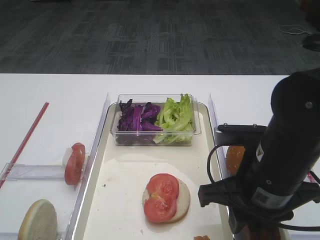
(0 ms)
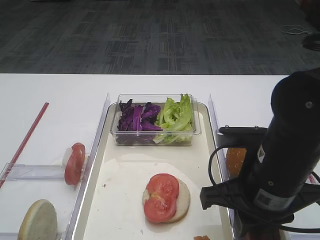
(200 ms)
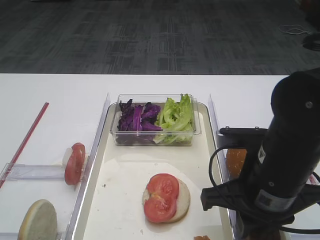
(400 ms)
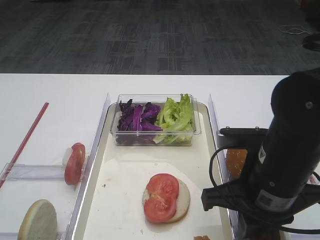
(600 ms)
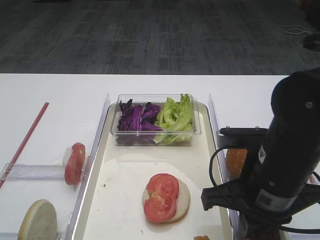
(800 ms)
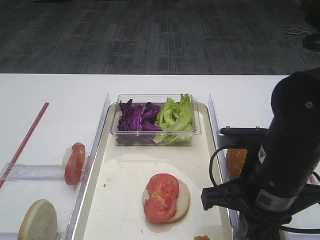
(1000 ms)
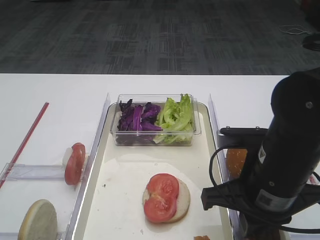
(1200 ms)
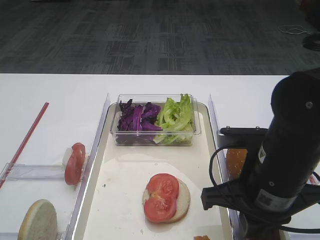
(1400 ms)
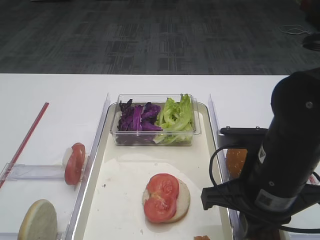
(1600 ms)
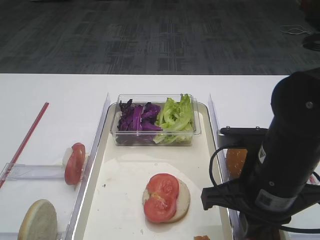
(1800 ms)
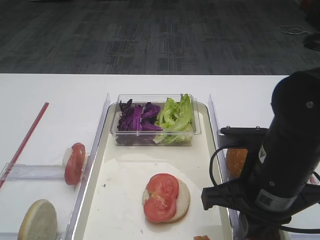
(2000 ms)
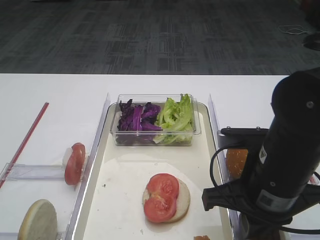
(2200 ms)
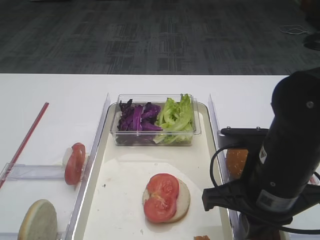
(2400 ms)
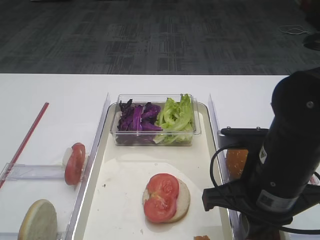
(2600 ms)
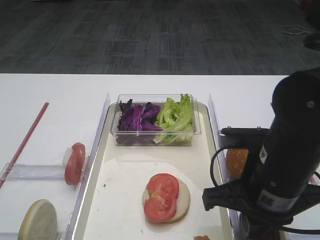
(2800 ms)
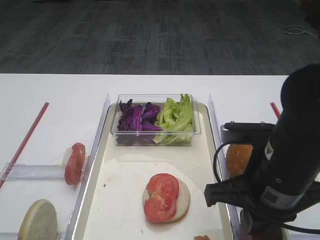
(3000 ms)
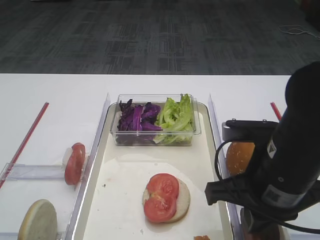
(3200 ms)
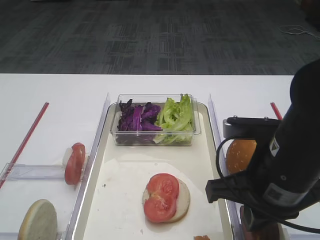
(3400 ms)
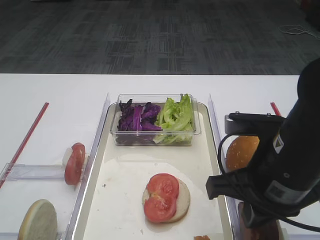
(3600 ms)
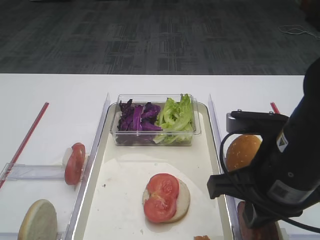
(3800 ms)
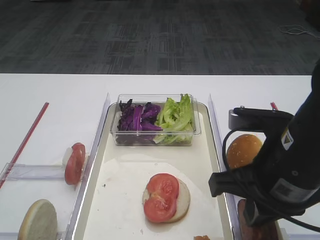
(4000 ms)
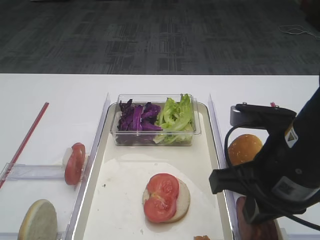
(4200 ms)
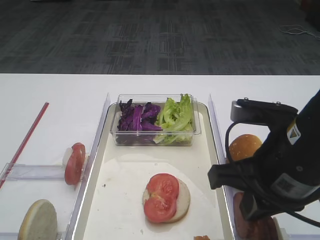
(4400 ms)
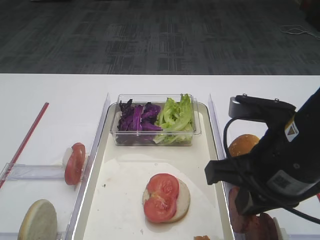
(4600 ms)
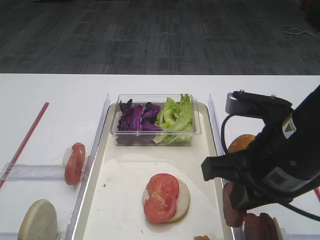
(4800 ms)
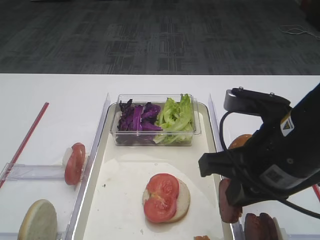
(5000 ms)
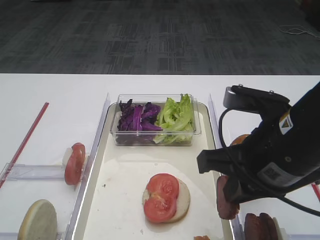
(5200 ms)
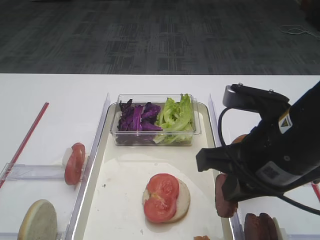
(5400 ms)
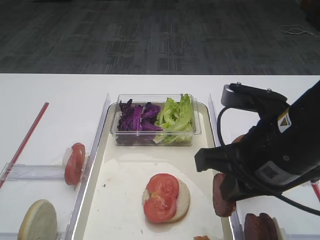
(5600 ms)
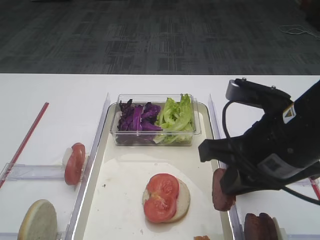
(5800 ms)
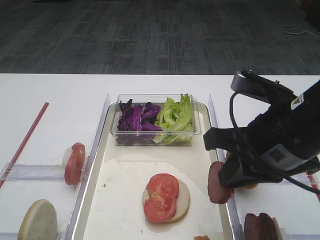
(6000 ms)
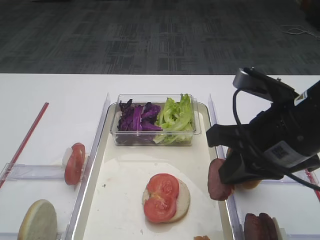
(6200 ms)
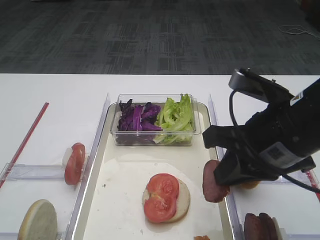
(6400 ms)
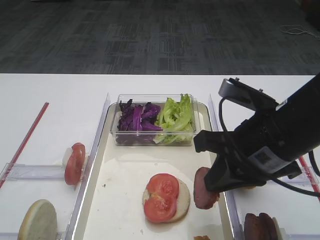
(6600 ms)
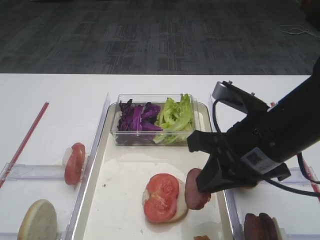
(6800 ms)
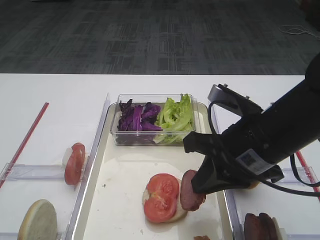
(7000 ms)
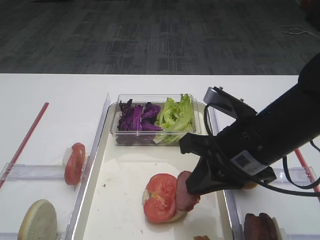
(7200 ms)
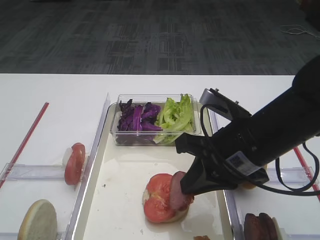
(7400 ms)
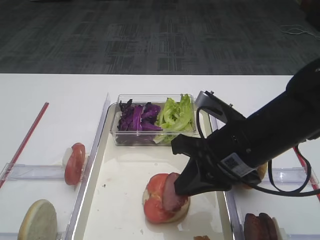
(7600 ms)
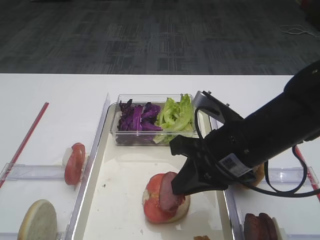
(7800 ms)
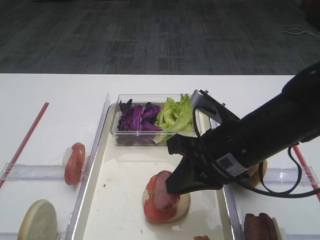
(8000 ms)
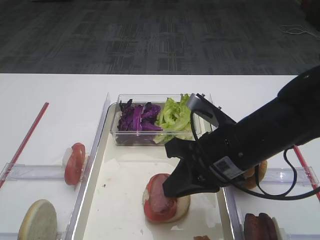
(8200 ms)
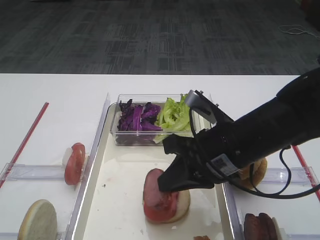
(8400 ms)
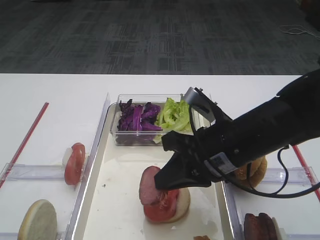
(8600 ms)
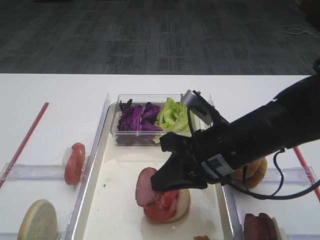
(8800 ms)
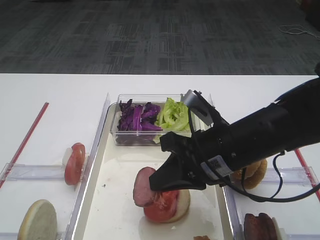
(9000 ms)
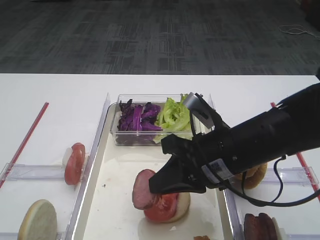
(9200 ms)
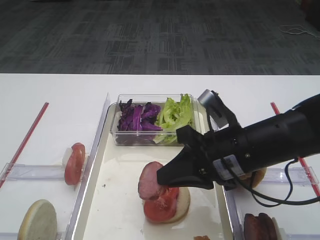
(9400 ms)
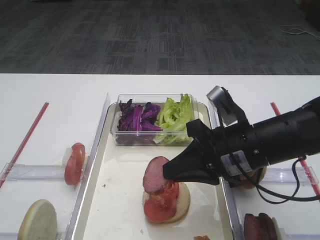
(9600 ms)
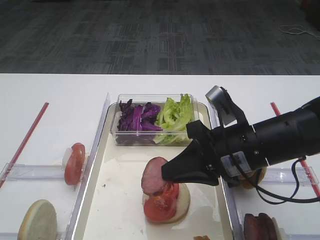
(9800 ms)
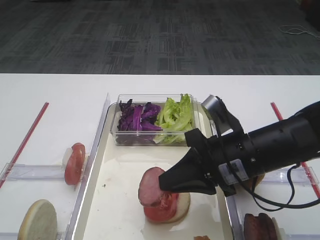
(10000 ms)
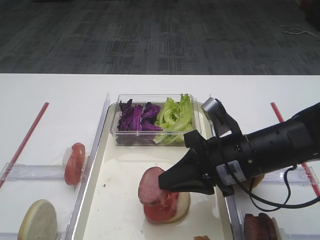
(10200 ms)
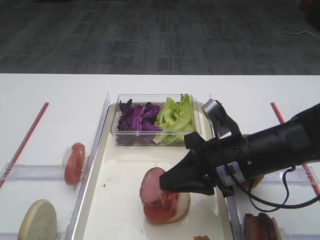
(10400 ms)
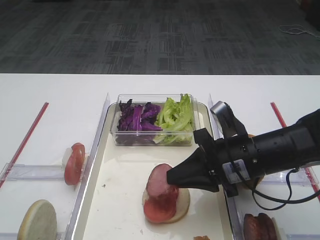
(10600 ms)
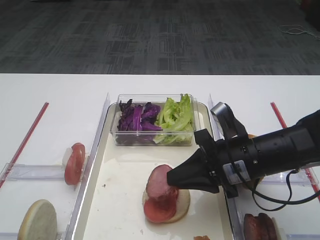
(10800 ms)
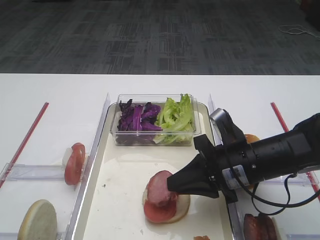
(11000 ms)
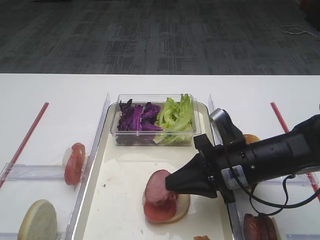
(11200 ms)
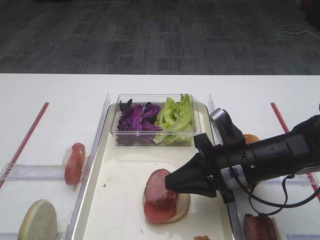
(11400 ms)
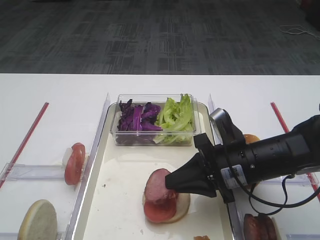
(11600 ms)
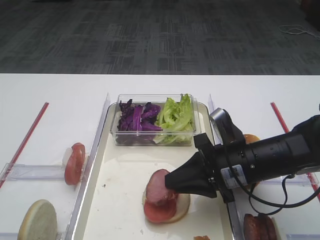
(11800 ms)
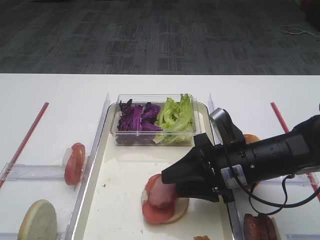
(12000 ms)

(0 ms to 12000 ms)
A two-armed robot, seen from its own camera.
Step, 0 ms - 5000 ms: Pick up the cutlet with the right gripper.
0 ms - 1600 ms: The right gripper closes up.
1600 ms - 3000 ms: Neither gripper changes place.
3000 ms - 4400 ms: The grippers move only a little.
4400 ms - 6000 ms: There are only small adjustments of the grippers.
6000 ms - 7600 ms: The right gripper changes place by approximately 5 cm.
7600 ms - 9000 ms: The grippers make only small movements.
9000 ms - 10400 ms: The grippers move only a little.
10400 ms - 12000 ms: The right gripper opens its fingers.

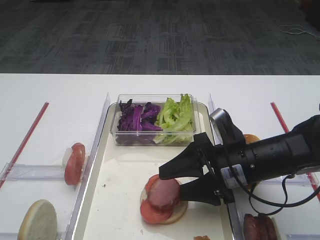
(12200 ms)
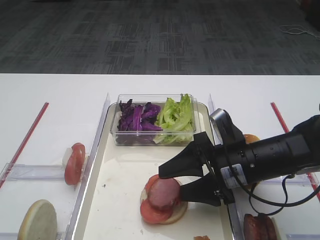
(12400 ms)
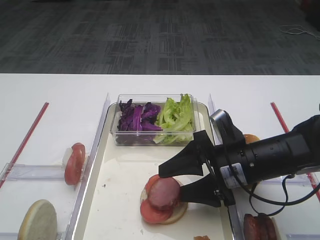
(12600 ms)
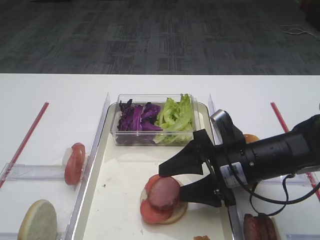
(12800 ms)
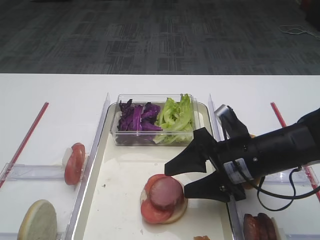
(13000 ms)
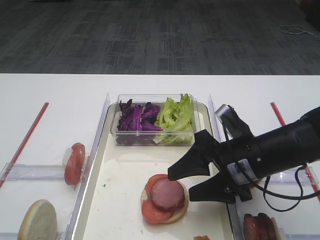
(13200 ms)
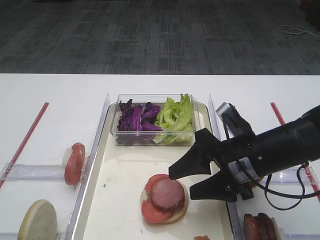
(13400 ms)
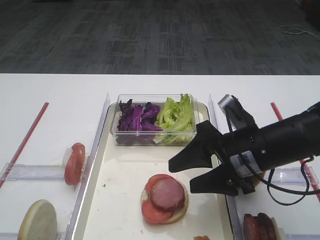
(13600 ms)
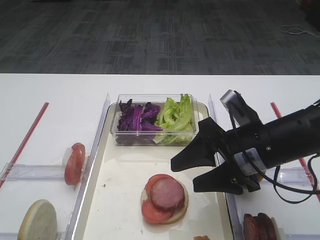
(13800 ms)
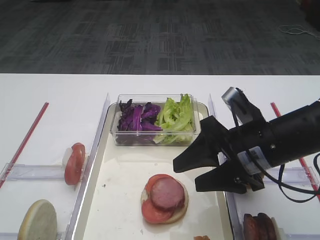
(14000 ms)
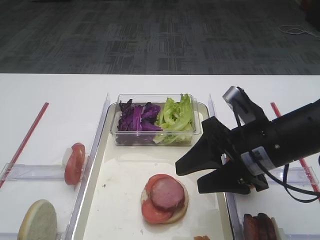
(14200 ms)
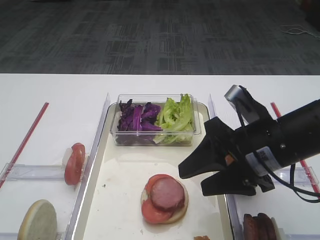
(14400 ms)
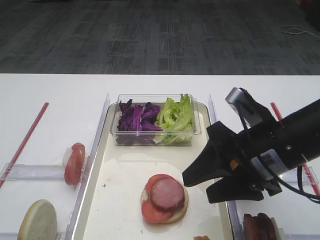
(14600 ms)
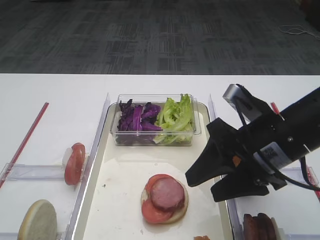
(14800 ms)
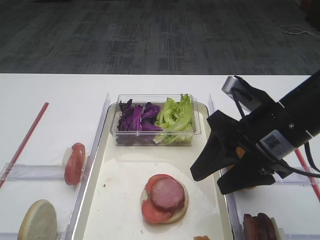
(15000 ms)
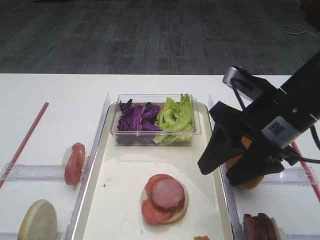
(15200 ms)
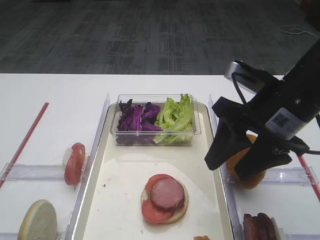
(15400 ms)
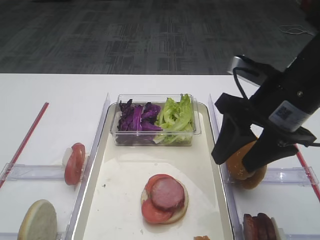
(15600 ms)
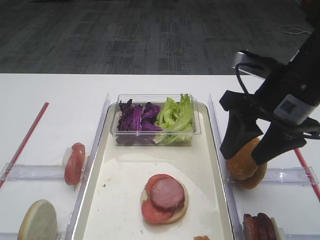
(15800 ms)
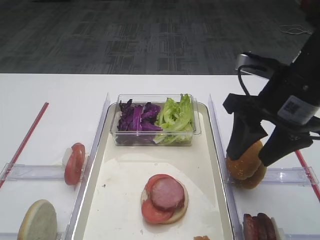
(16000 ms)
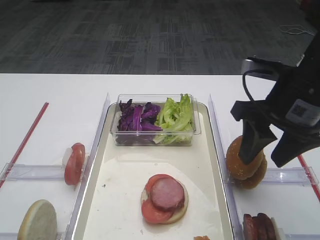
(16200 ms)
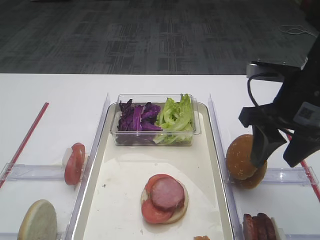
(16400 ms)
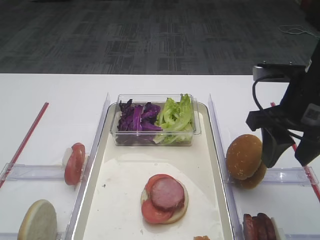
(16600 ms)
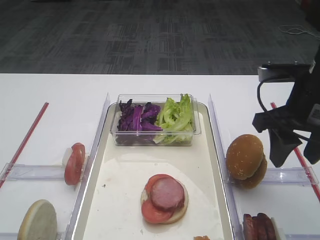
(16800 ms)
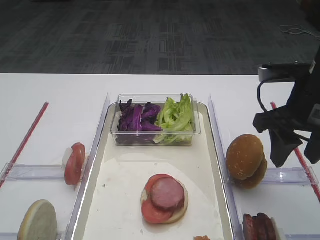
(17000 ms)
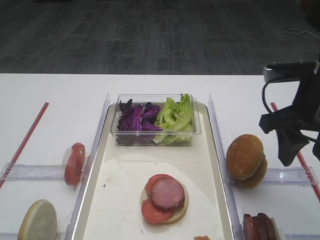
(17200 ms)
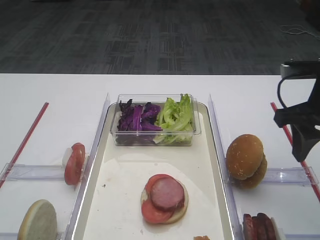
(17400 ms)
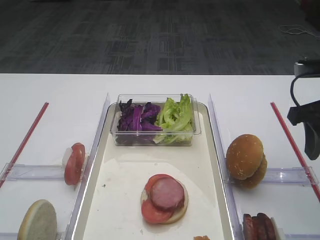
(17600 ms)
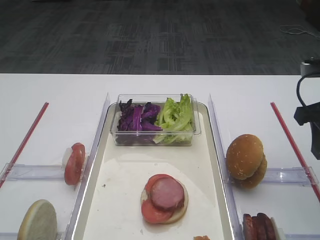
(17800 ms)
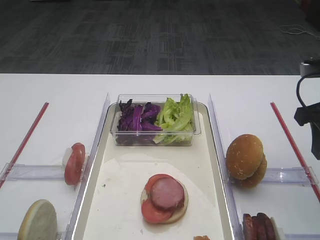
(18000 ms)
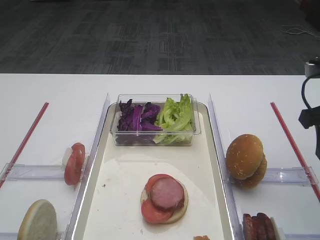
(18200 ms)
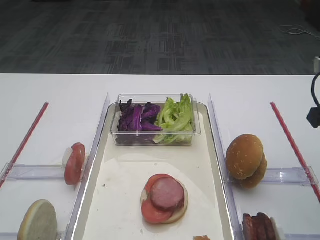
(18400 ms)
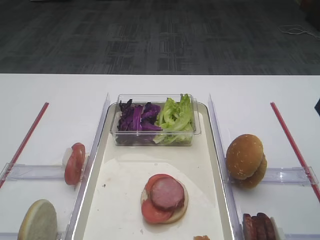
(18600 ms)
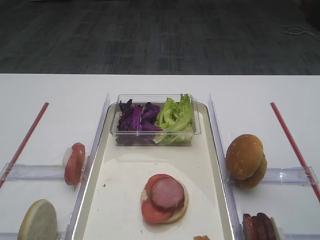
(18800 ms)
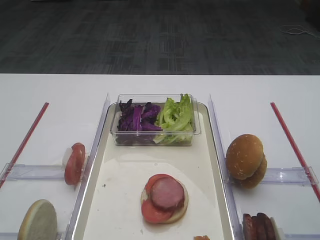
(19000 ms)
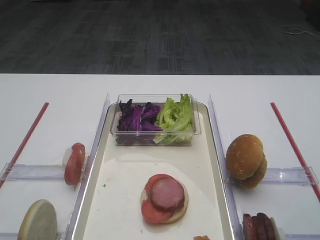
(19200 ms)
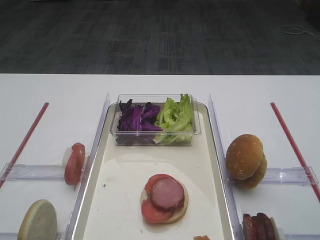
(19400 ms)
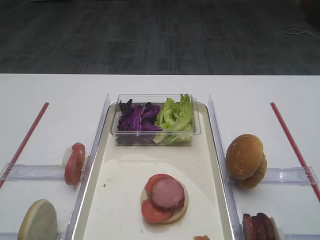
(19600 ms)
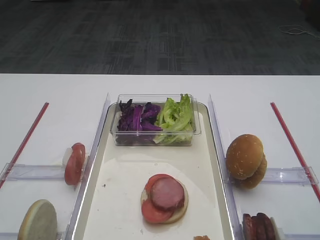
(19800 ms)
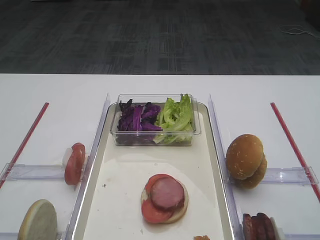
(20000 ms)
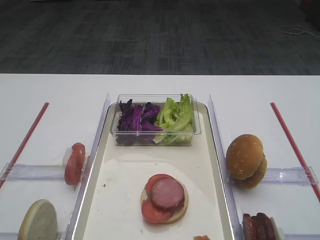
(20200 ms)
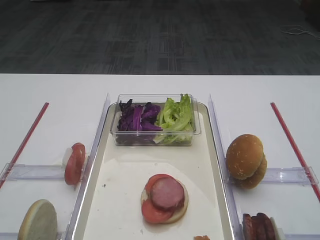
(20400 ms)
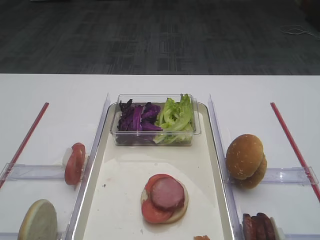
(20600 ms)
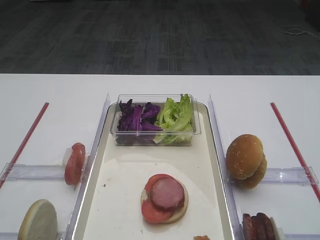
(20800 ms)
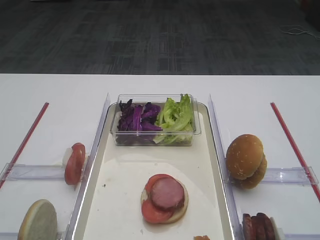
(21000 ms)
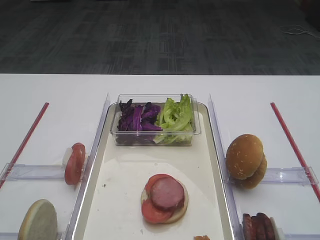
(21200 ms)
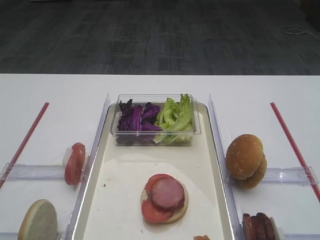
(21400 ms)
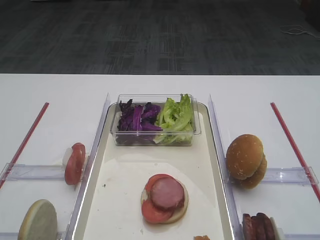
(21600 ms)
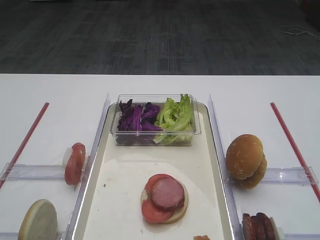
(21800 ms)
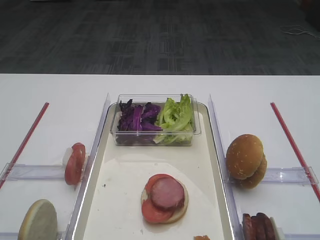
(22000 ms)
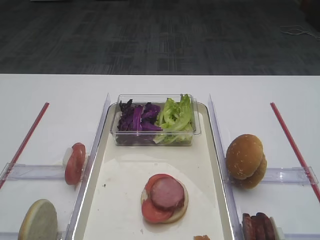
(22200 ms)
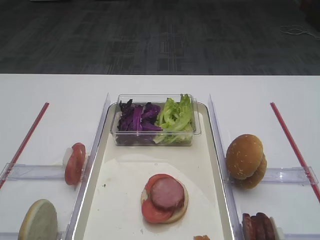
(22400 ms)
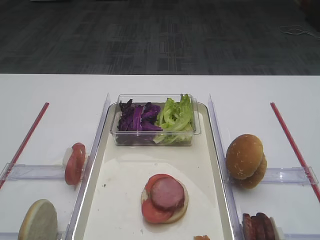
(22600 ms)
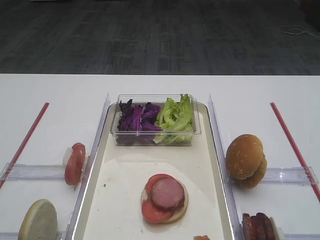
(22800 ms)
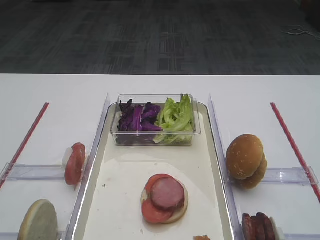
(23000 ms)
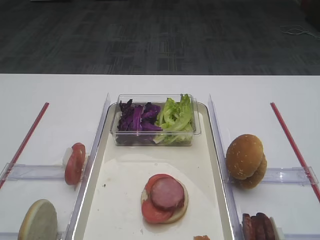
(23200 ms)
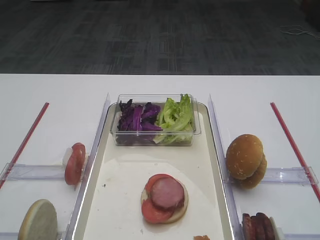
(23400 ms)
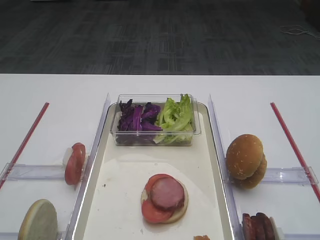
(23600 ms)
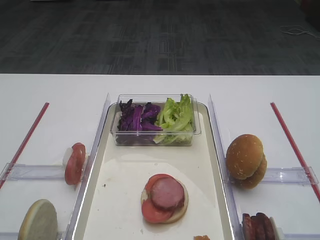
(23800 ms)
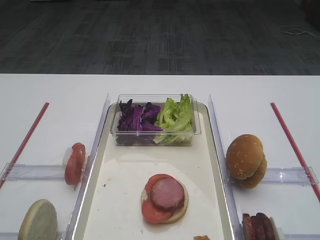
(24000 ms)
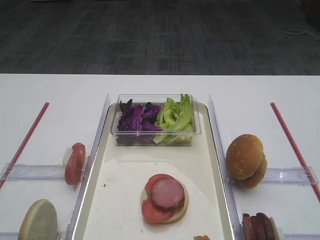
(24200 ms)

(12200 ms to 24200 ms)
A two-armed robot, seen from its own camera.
Step, 12200 ms - 14400 ms: Place the cutlet on the tomato slice with the right gripper.
12200 ms - 13800 ms: The right gripper moves upward, some 5 cm.
13800 ms - 15200 ms: The right gripper shifts approximately 5 cm upward.
16600 ms - 18200 ms: The right gripper is displaced to the right by approximately 5 cm.
18200 ms - 19800 ms: The right gripper shifts roughly 15 cm backward.
